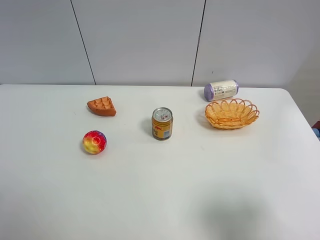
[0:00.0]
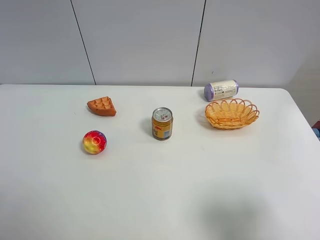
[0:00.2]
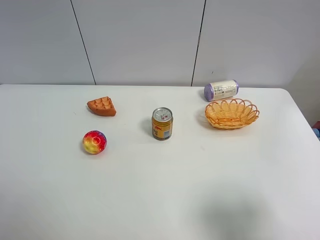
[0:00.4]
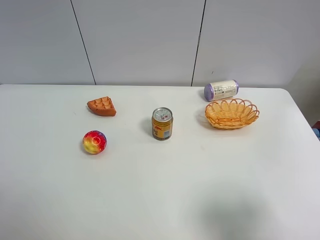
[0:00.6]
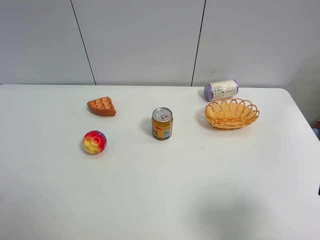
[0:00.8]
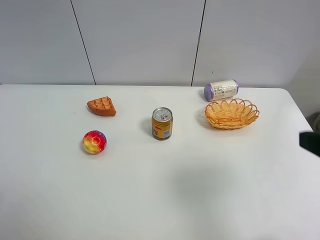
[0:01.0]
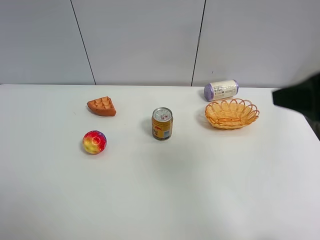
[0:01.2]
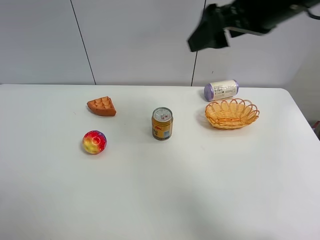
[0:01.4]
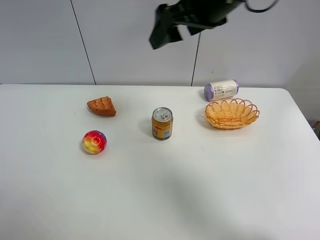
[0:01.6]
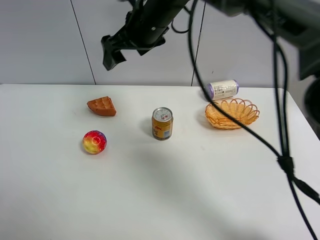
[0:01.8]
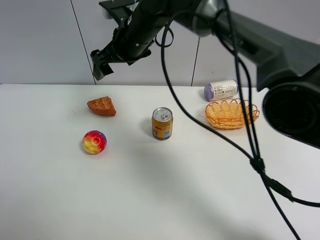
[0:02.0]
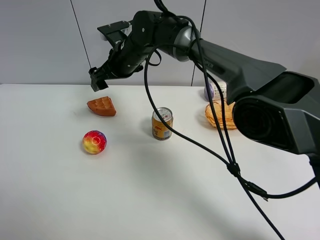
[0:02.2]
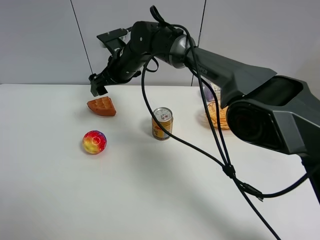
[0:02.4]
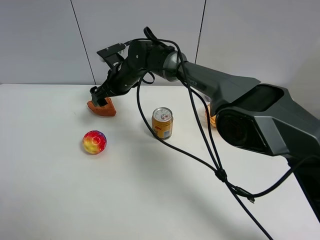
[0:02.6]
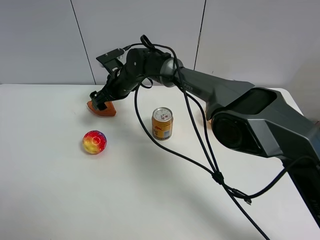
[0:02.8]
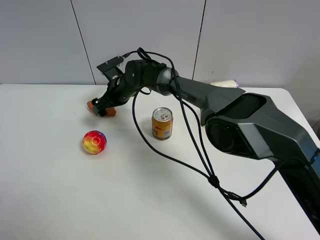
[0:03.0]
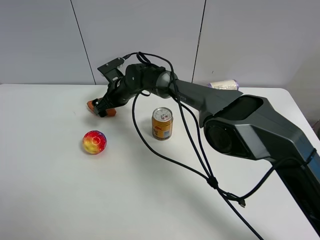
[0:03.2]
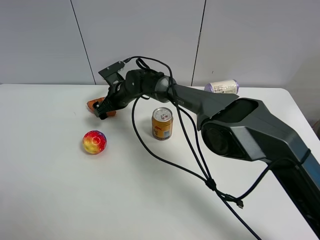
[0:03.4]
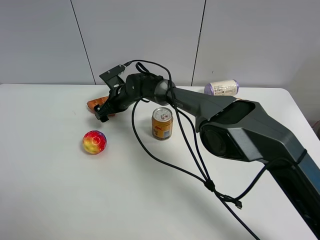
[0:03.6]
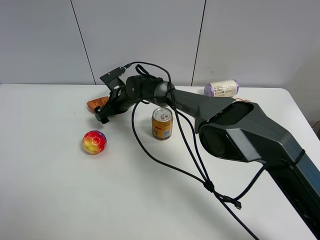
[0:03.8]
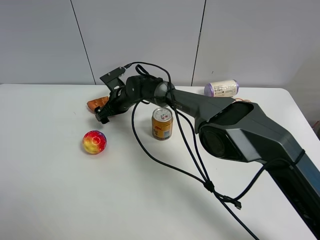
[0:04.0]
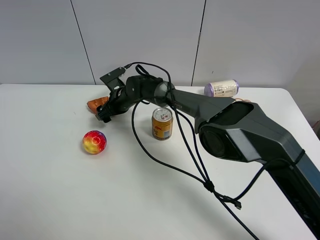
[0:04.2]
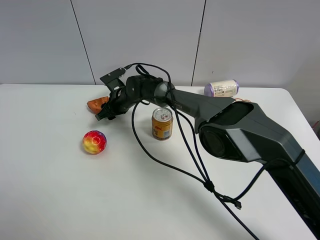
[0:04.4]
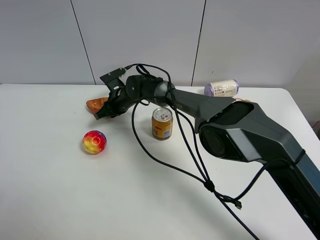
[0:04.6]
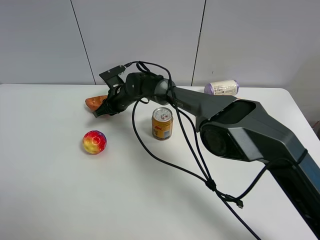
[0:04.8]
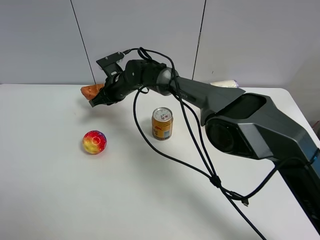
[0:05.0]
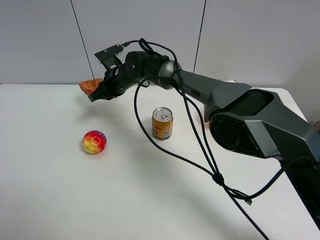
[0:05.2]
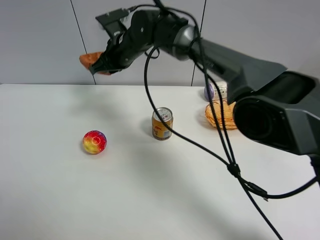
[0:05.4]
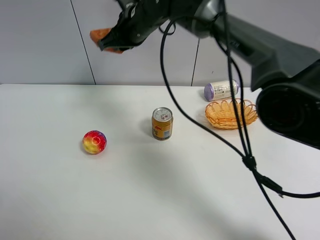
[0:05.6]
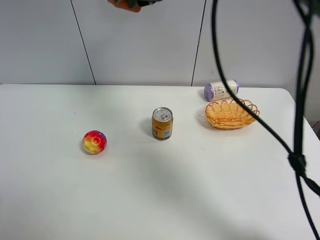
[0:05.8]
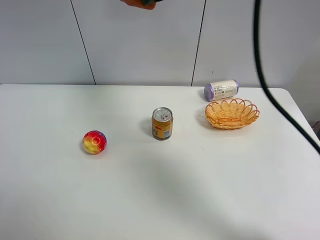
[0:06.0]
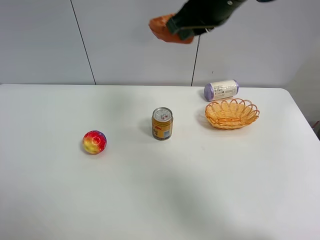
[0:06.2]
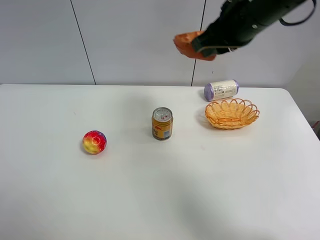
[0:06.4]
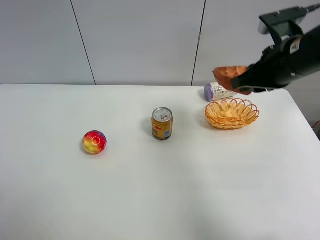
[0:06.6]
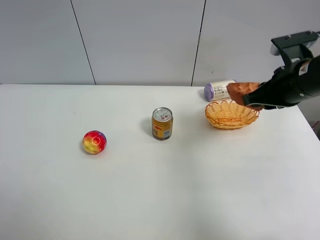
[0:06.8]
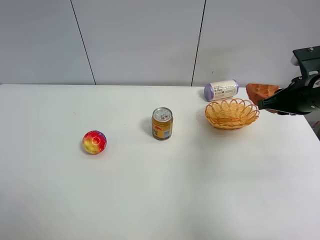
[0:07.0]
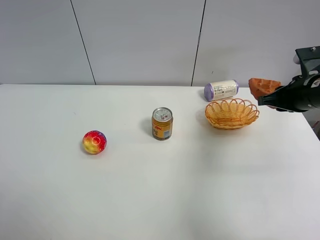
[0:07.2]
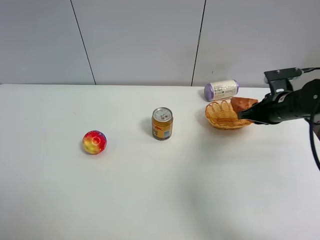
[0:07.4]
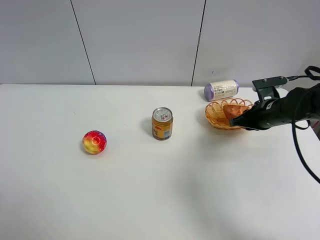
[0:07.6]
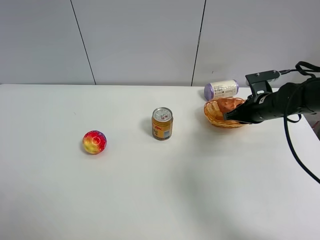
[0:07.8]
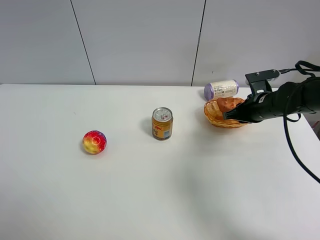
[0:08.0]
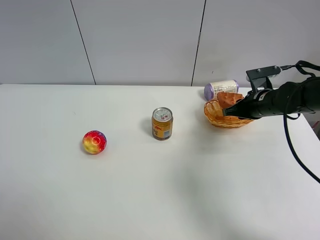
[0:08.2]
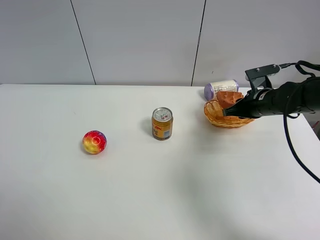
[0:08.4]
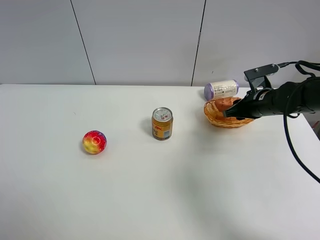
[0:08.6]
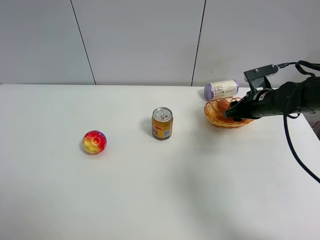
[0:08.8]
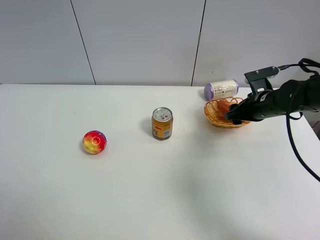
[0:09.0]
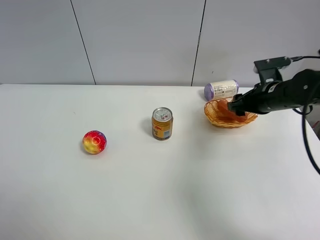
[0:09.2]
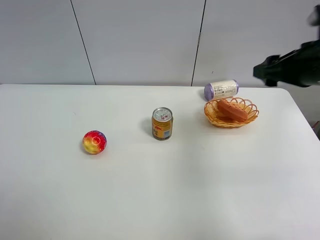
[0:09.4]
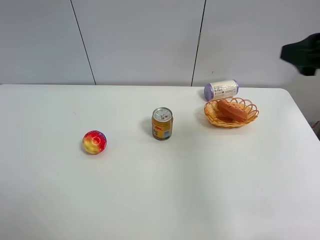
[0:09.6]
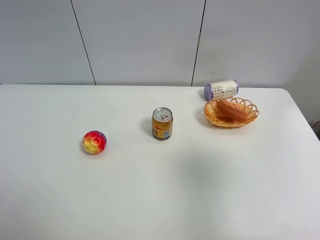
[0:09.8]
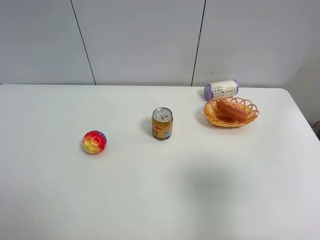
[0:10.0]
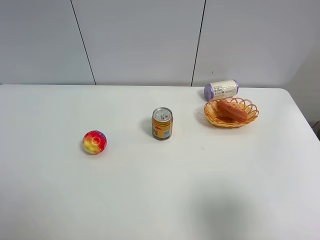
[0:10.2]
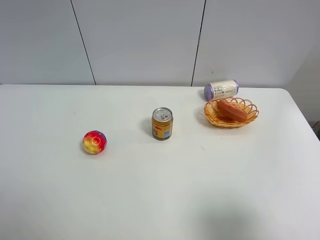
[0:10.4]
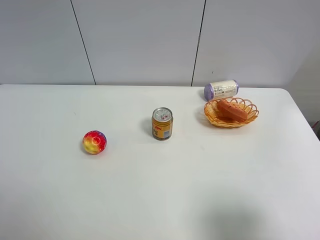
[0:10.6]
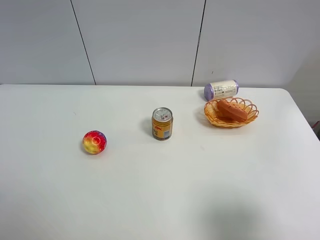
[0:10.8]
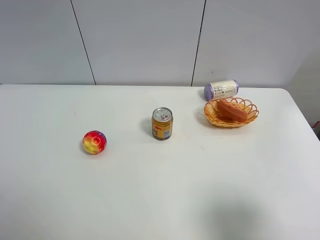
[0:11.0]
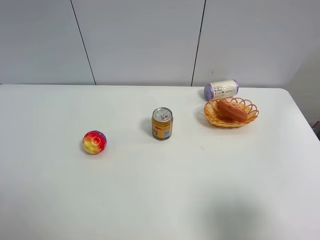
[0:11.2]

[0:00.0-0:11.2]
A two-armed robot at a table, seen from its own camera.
Task of the whole recording: Put the bakery in the basket.
Step, 0:00.0 to 0:04.4: Grasp the bread with right gripper.
Step, 0:04.6 to 0:09.4: Place the bread in the basket with right gripper.
0:00.0 to 0:01.6: The right gripper heads forward and to the left, covering roughly 40 cm.
0:01.6 to 0:03.2: The right gripper moves downward, to the left and forward, about 35 cm.
0:03.2 to 0:04.8: The right gripper closes its fingers.
0:04.8 to 0:06.4: The right gripper heads upward, to the right and backward, covering about 40 cm.
0:06.4 to 0:08.0: The right gripper shifts some 25 cm downward and to the right.
0:08.0 to 0:09.6: The right gripper shifts approximately 30 cm upward and backward, and opens up.
0:09.6 to 0:11.2: The right gripper travels backward and downward by approximately 20 cm.
